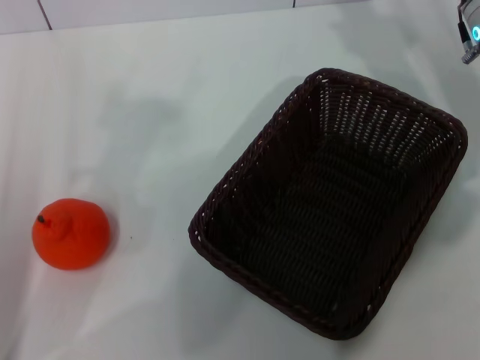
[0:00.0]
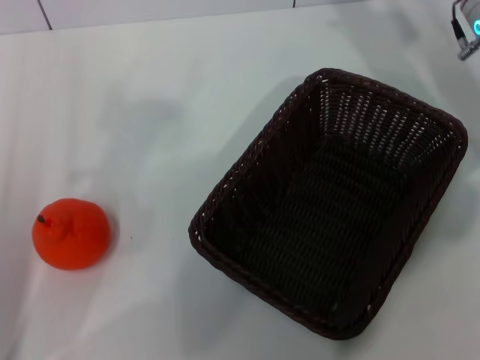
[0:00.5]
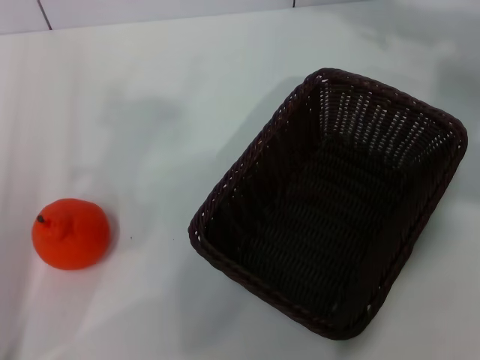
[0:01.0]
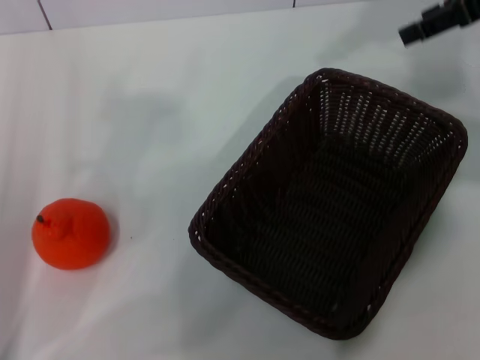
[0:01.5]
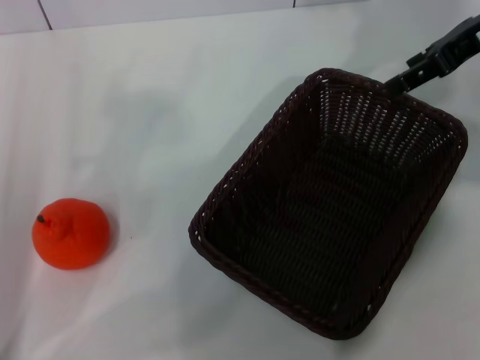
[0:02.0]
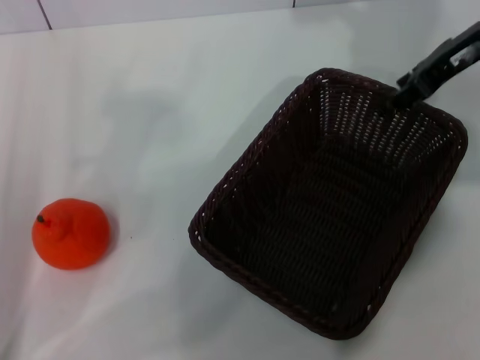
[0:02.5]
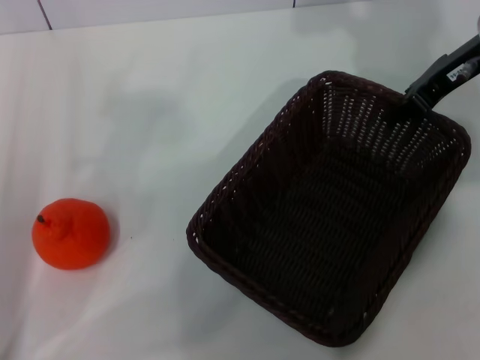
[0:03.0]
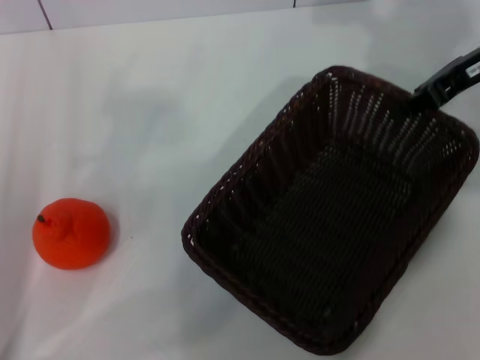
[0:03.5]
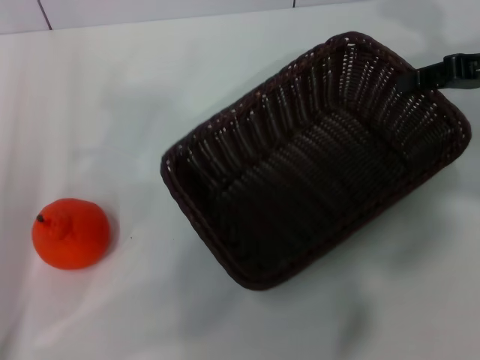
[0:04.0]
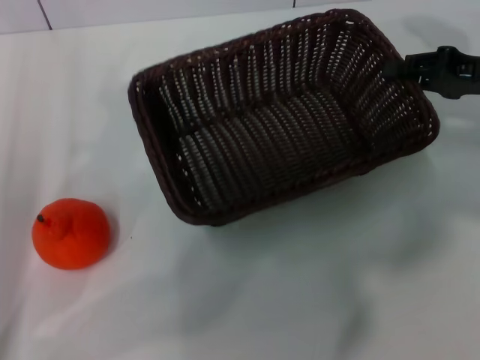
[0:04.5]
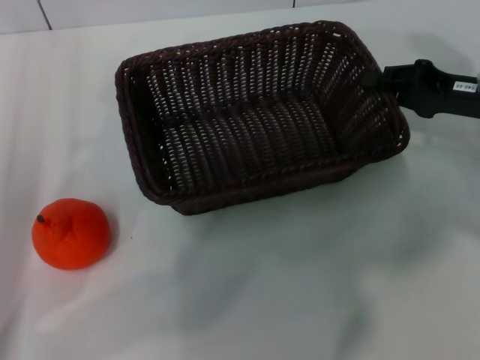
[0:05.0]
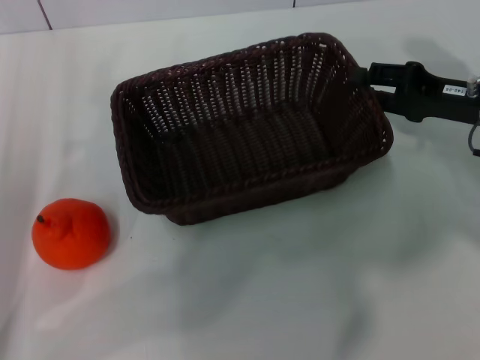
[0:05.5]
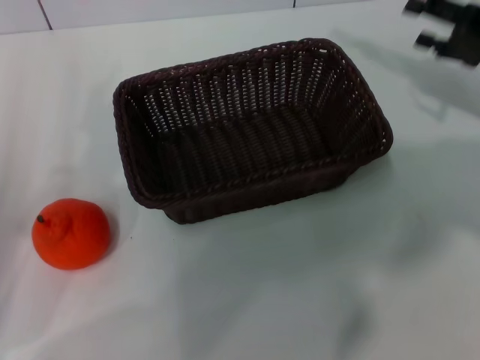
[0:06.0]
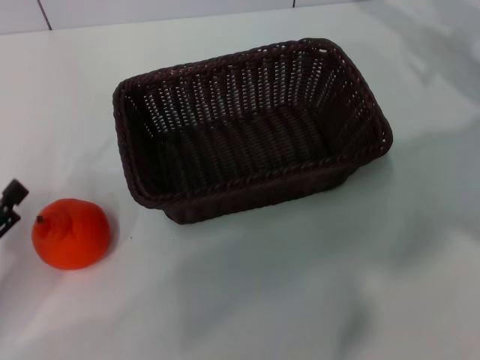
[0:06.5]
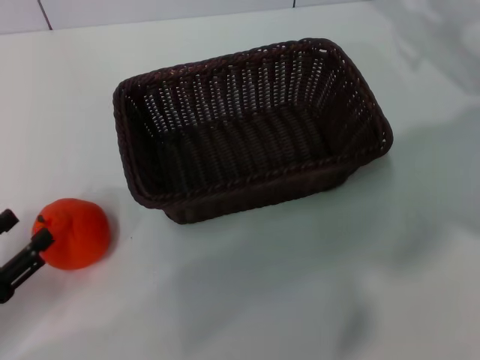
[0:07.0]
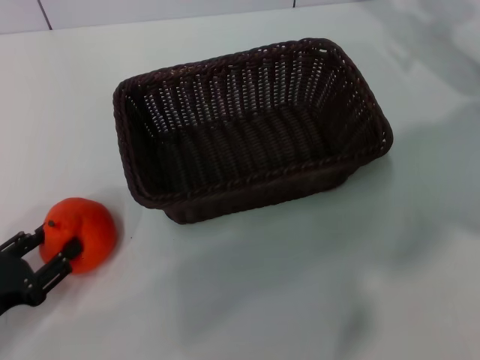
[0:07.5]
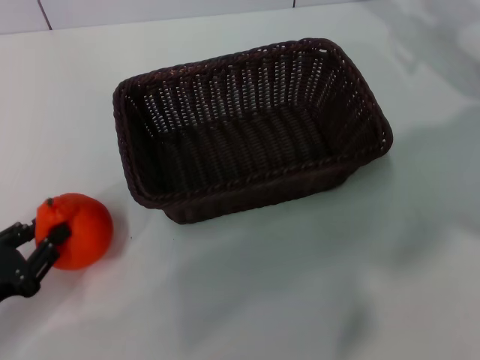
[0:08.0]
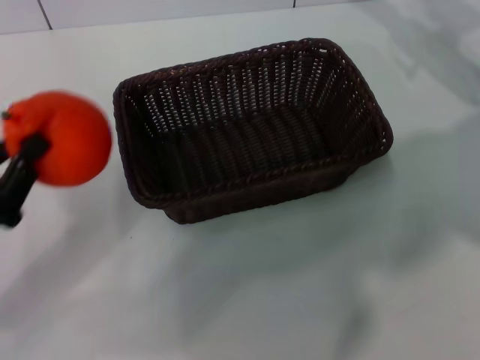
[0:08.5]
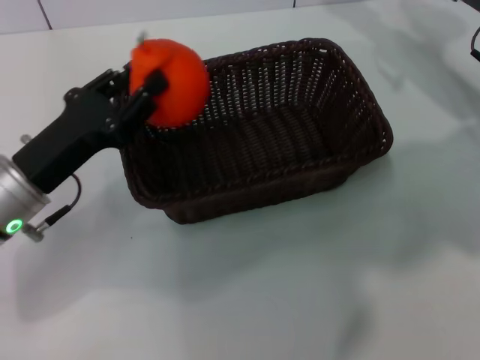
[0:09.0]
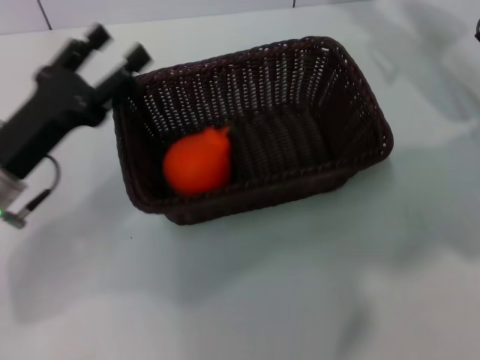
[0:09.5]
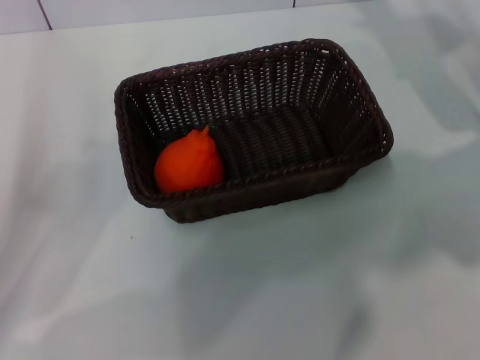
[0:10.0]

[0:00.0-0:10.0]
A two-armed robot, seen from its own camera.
Task of the whole recording: the right gripper pick up the black basket and place it horizontally in the middle of the table, the left gripper pick up the orange and place it into the black basket.
Step, 0:00.0 to 0:03.5: Pick up the dark basket with the right gripper.
Step, 0:04.0 to 0:05.5: Place the dark basket in the center of view with the right gripper.
Step, 0:06.0 to 0:08.0: Pick up the orange with the left gripper.
Step, 0:08.5 to 0:09.0: Place the orange into the dark basket with the left gripper.
0:00.0 to 0:02.0: The right gripper heads upward, covering roughly 10 cm.
0:02.0 to 0:04.0: The right gripper goes about 10 cm downward and to the right, and closes up.
0:04.0 to 0:06.0: The right gripper opens up.
0:06.0 to 0:08.0: The right gripper shifts about 5 cm forward. Meanwhile the left gripper changes place by approximately 5 cm, and closes up.
0:08.0 to 0:10.0: The left gripper shifts about 5 cm upward, and opens up.
